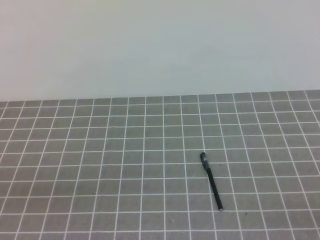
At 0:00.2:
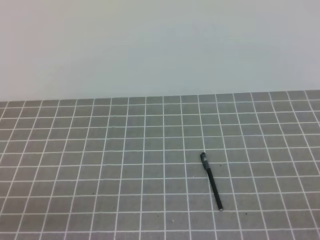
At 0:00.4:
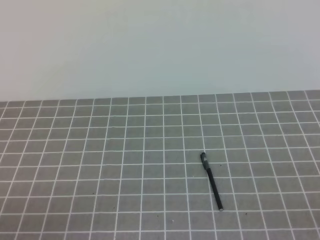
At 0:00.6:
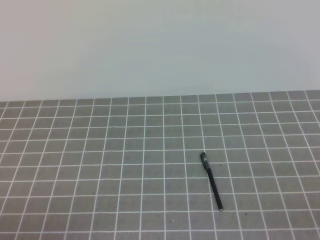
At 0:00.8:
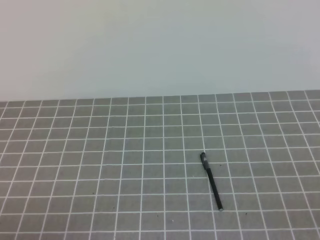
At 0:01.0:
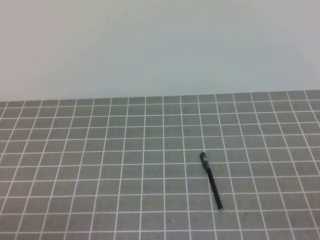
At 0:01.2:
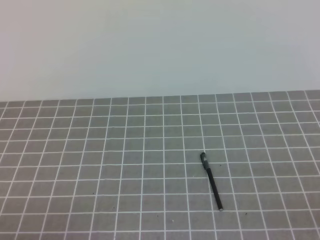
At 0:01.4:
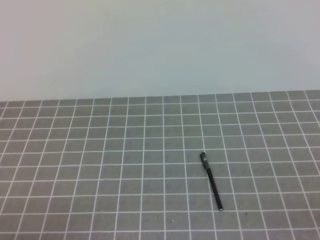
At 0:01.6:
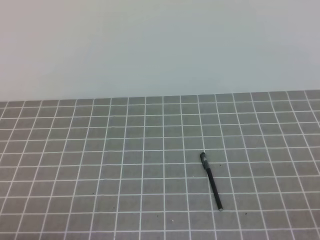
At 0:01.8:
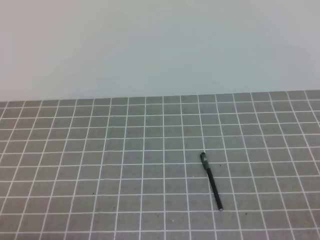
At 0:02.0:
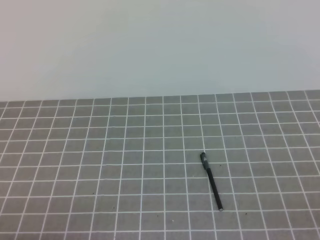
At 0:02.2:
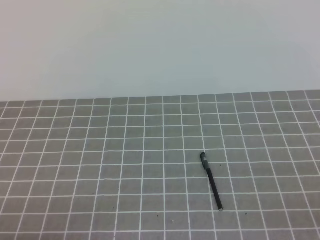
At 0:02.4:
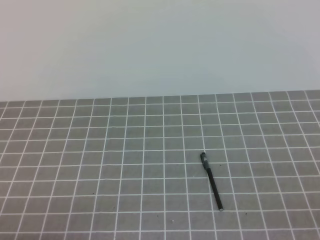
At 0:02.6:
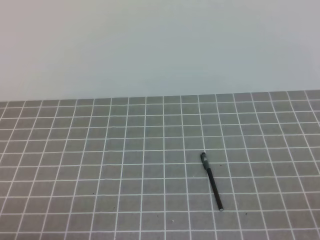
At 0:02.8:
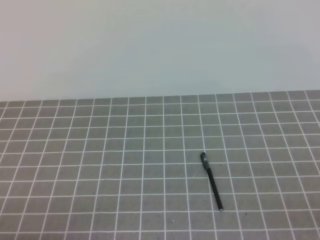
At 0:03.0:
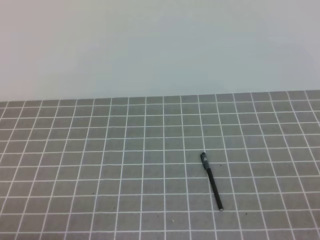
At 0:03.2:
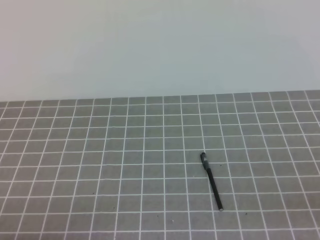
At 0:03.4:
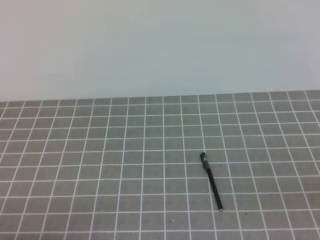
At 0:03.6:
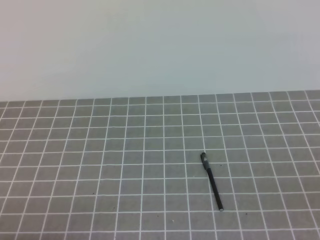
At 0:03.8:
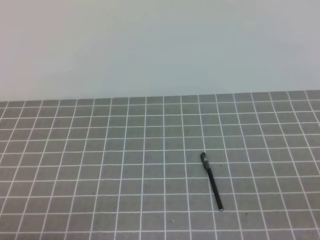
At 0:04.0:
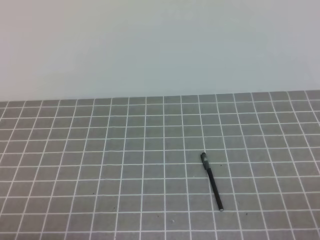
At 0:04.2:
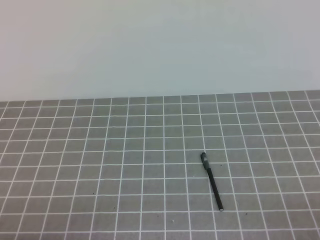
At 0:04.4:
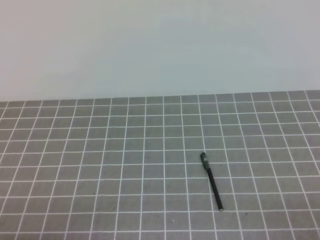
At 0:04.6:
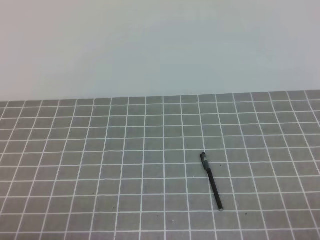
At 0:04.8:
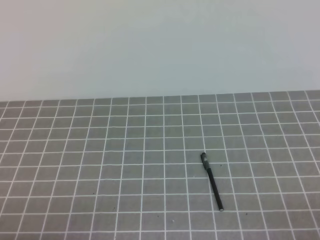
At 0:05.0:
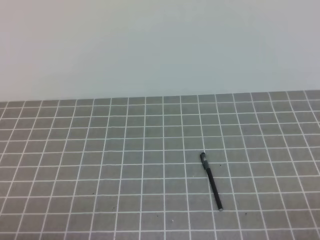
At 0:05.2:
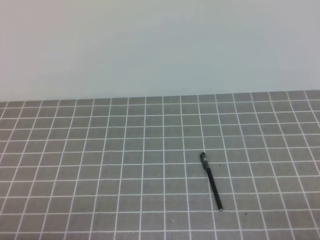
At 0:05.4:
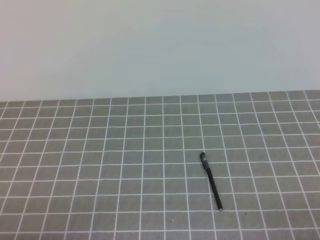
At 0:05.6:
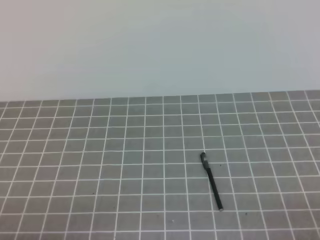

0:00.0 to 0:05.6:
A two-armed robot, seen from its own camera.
Task of the whole recording: on the grey tablecloth, hold the pen cap in one hand and the pen in the other, then cover the pen cap.
0:04.2 to 0:05.6: Neither gripper changes place.
